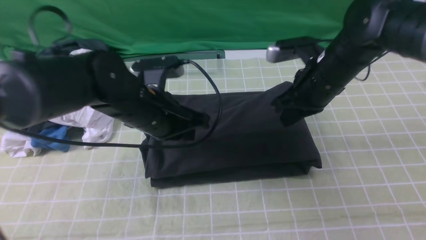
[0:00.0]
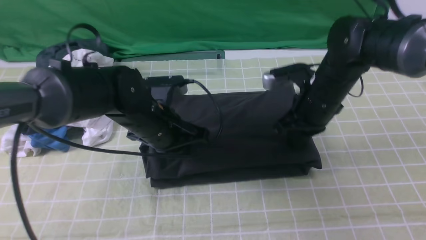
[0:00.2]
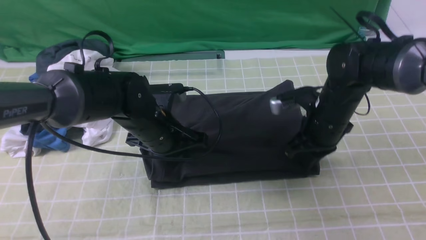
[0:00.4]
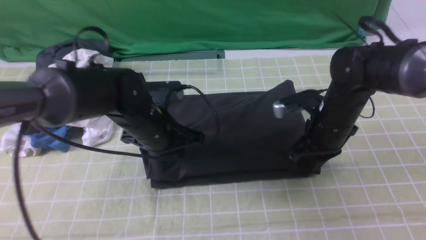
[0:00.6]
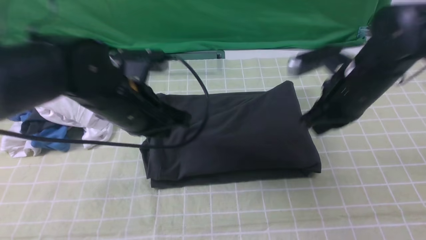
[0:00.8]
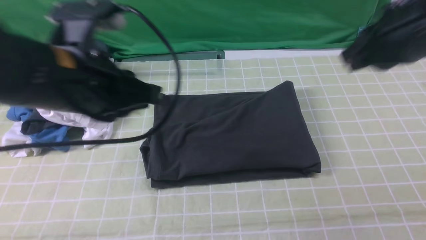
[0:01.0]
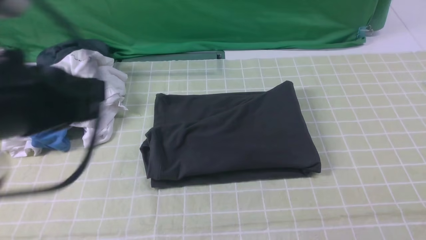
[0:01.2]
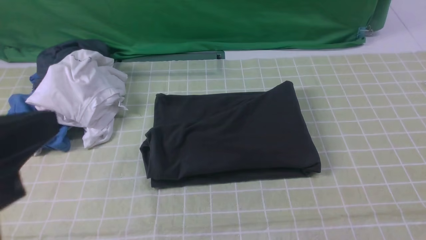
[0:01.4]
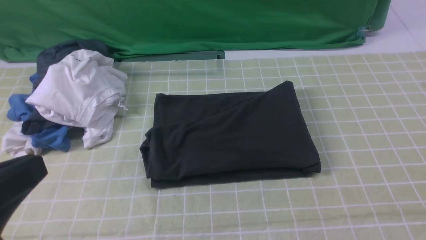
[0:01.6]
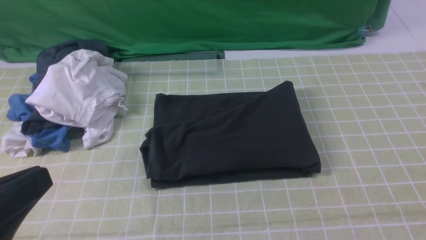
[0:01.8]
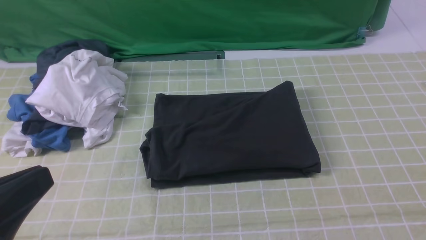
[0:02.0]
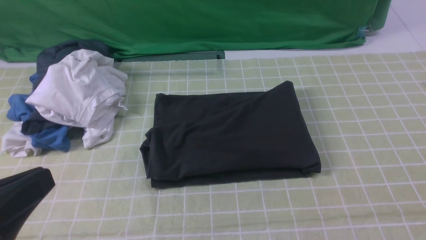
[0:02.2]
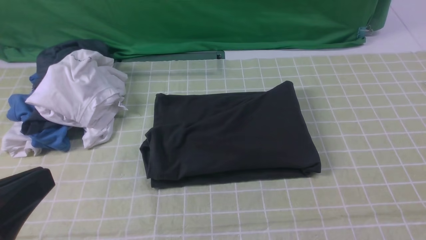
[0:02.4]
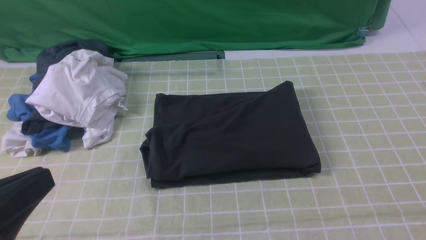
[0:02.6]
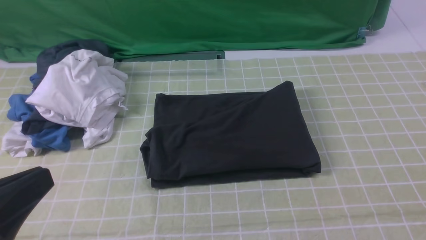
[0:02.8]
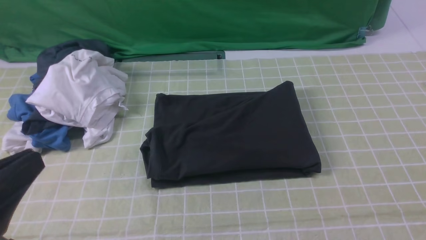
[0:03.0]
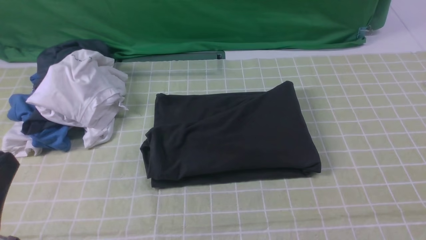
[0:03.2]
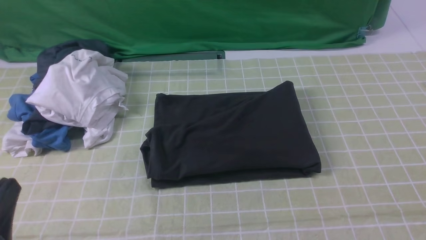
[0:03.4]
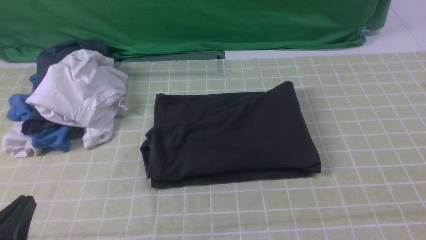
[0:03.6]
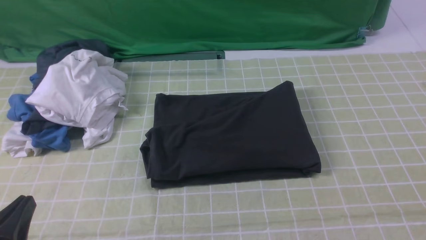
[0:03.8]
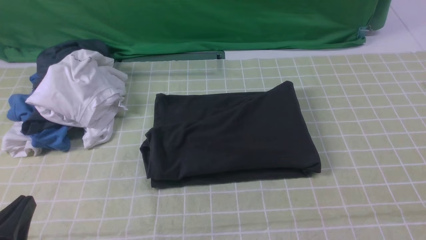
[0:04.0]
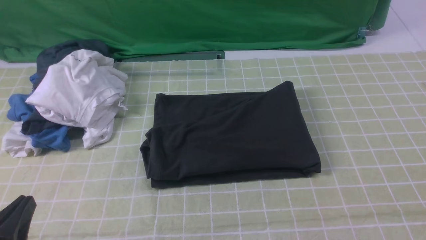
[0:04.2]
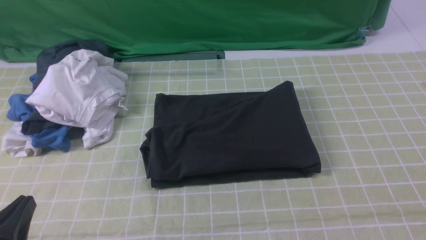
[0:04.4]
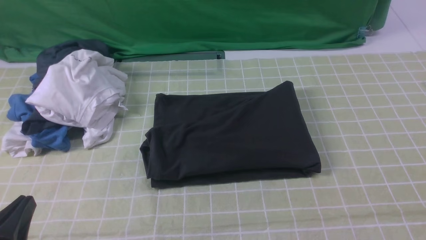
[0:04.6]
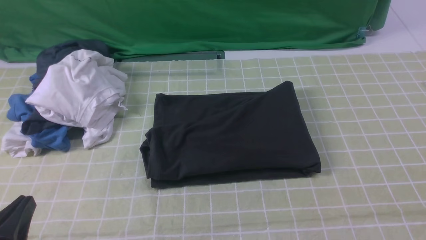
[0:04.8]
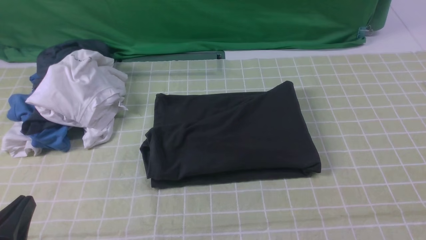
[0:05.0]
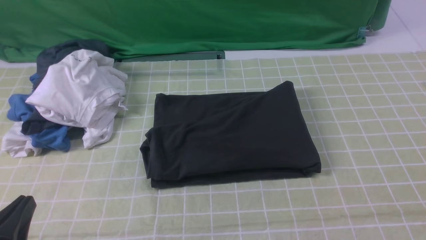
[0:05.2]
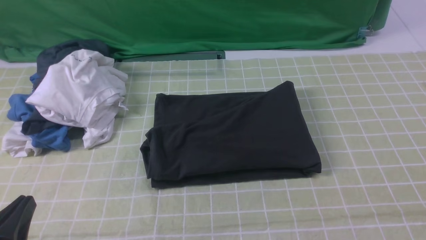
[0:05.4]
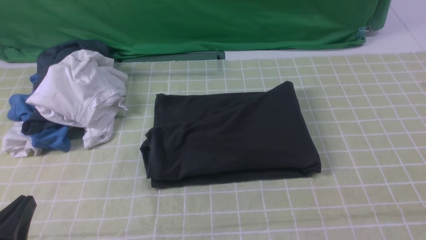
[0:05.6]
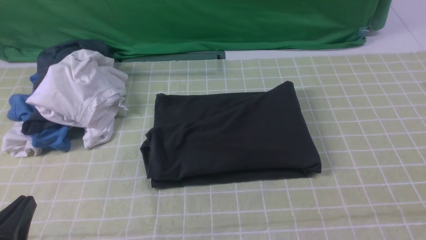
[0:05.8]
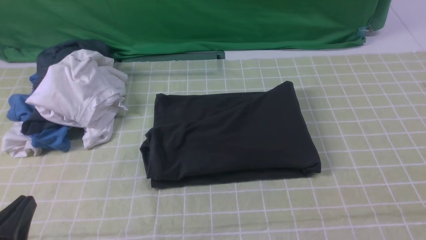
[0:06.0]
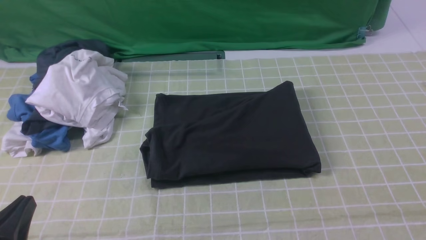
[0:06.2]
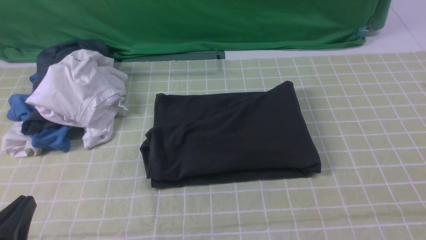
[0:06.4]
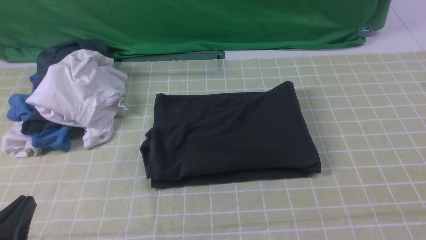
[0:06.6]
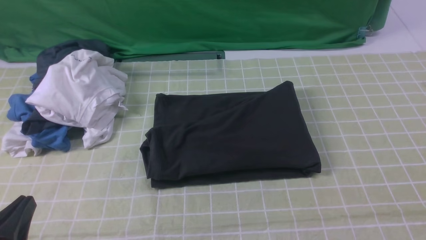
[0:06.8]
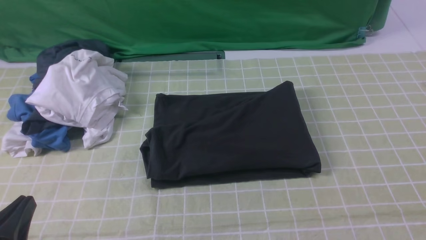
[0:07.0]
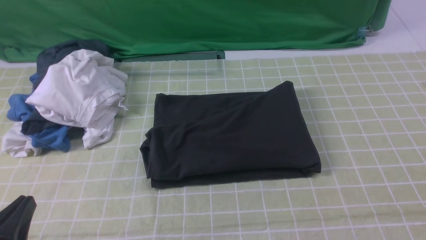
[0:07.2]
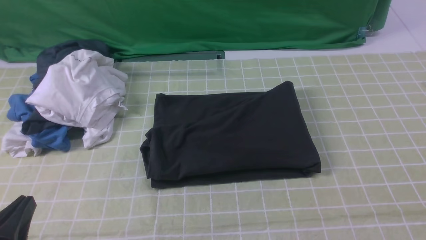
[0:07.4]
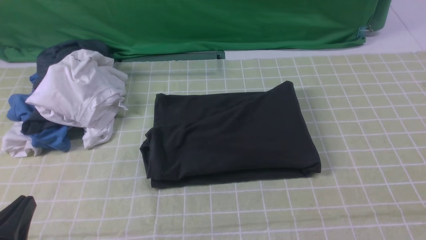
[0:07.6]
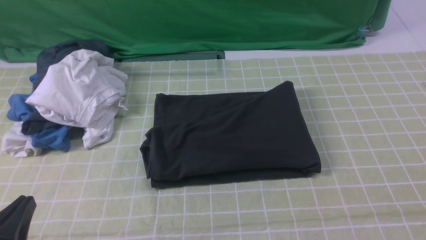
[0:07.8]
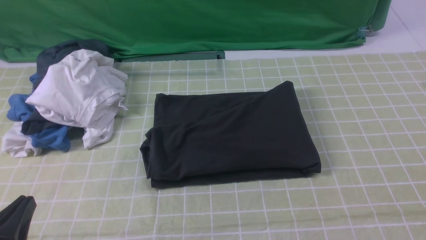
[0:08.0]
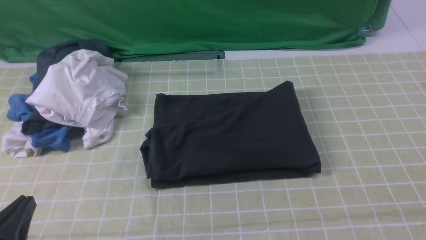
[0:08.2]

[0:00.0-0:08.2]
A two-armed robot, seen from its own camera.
0:00.0 to 0:01.6: The right gripper moves backward, upward and to the right, some 40 cm. The left gripper goes some 30 cm backward, upward and to the left.
0:01.6 to 0:03.2: The left gripper moves downward, some 5 cm.
0:03.2 to 0:05.0: The left gripper moves downward, about 5 cm.
0:06.6 to 0:08.2: Both grippers stay put.

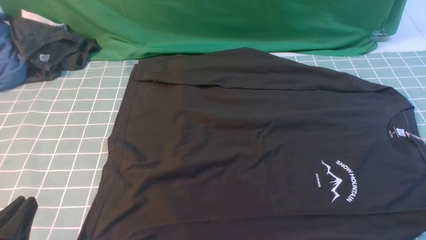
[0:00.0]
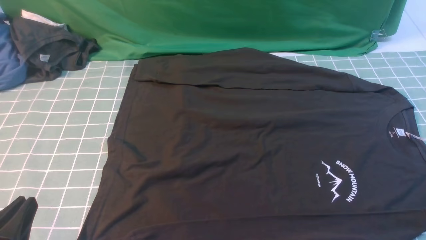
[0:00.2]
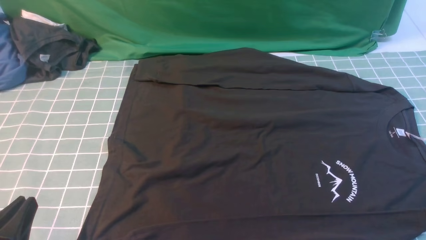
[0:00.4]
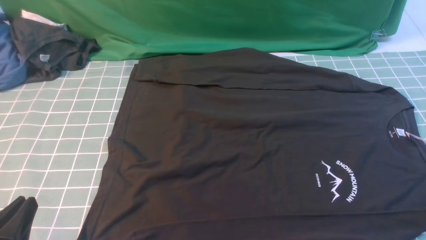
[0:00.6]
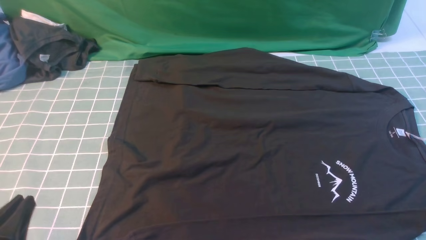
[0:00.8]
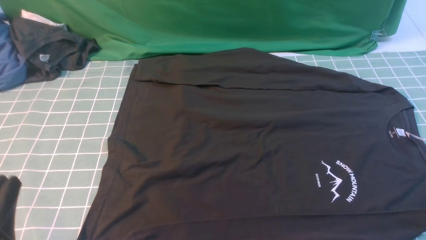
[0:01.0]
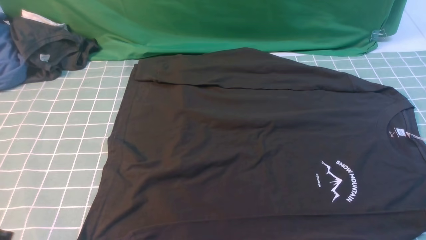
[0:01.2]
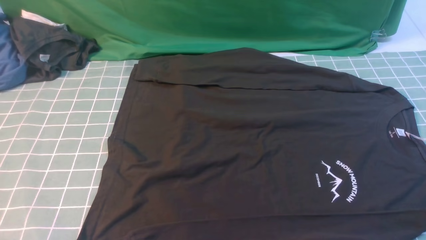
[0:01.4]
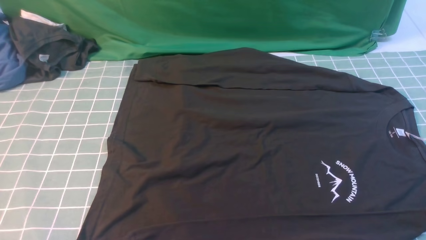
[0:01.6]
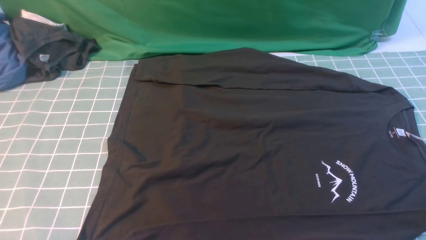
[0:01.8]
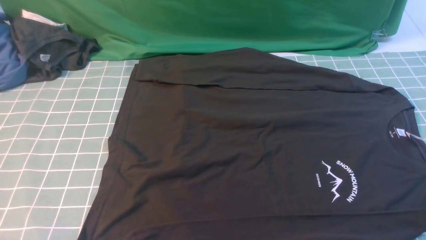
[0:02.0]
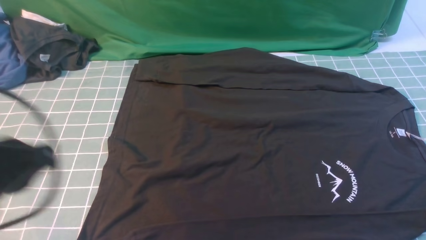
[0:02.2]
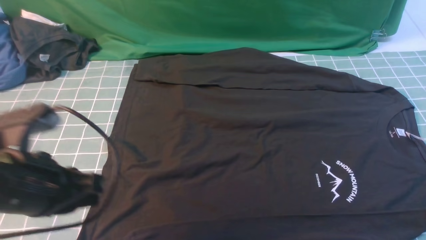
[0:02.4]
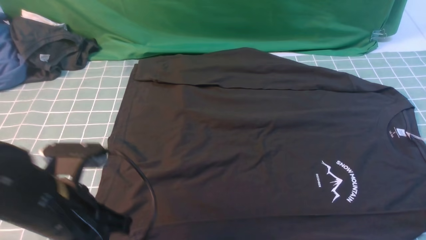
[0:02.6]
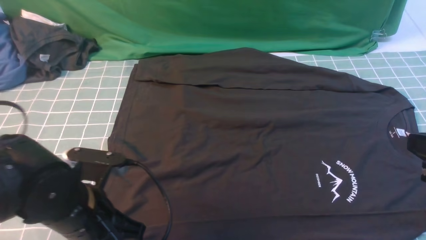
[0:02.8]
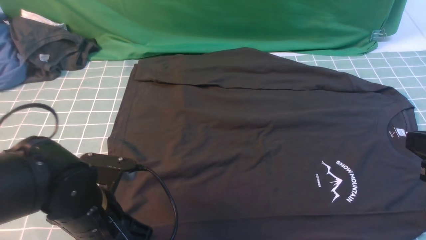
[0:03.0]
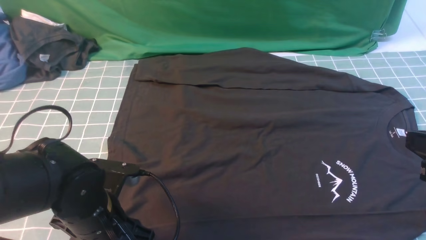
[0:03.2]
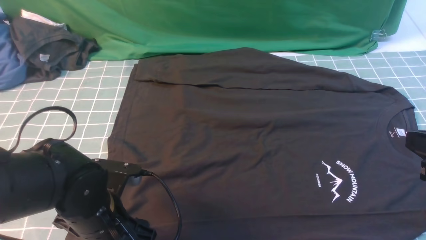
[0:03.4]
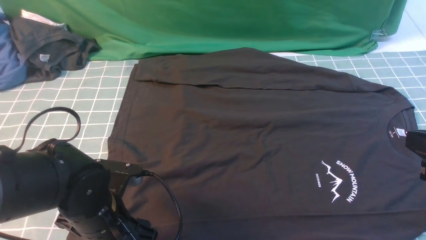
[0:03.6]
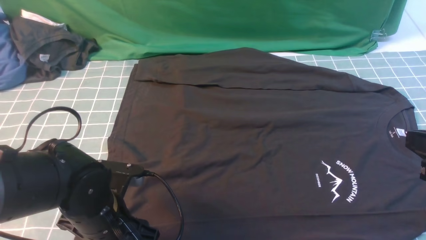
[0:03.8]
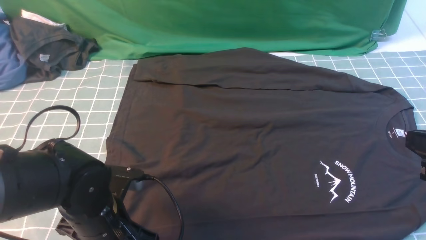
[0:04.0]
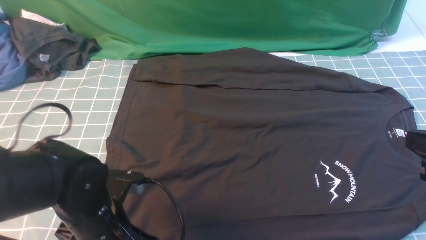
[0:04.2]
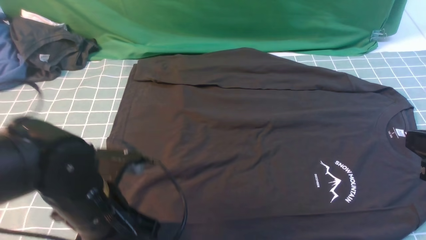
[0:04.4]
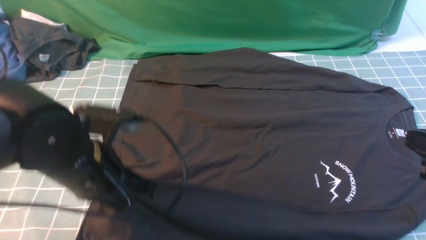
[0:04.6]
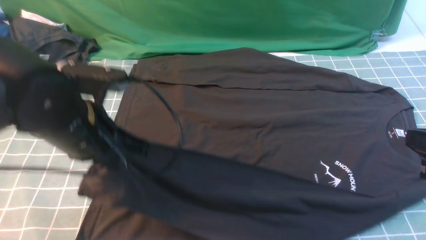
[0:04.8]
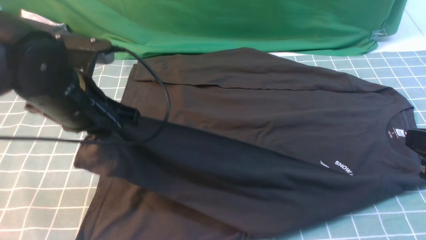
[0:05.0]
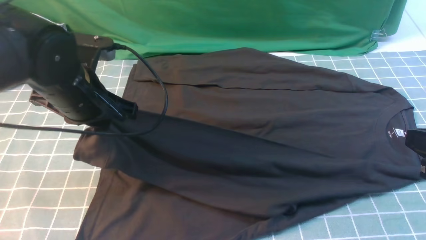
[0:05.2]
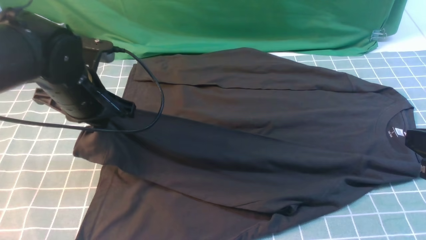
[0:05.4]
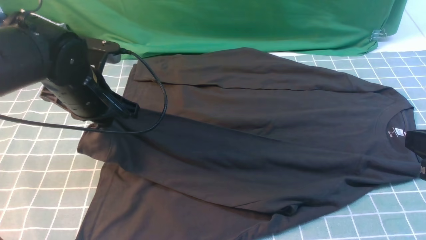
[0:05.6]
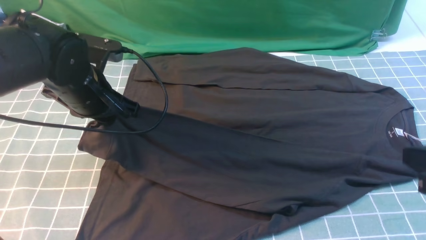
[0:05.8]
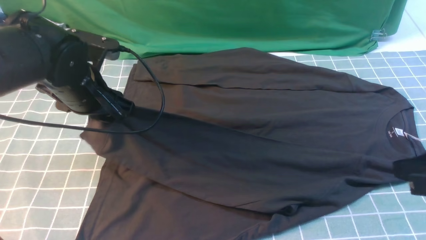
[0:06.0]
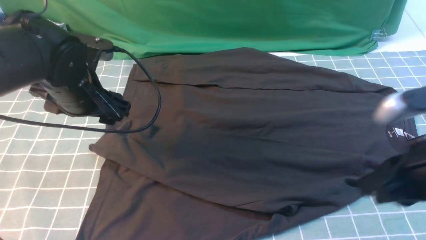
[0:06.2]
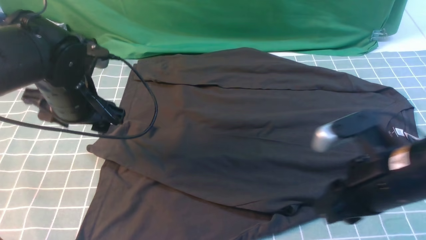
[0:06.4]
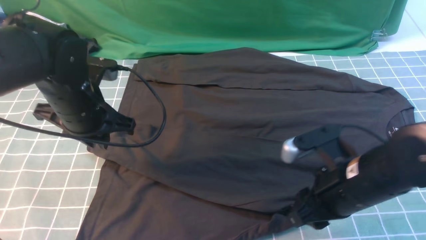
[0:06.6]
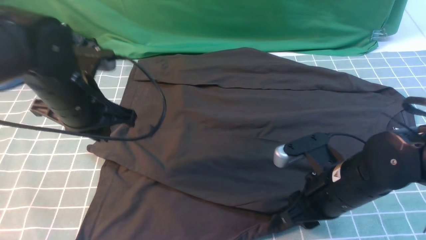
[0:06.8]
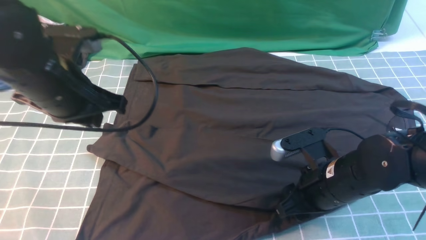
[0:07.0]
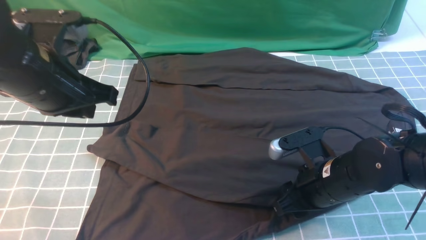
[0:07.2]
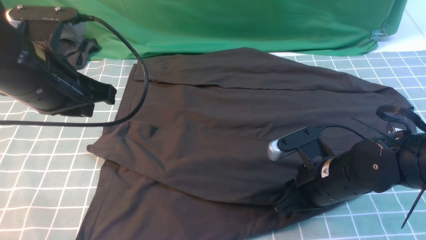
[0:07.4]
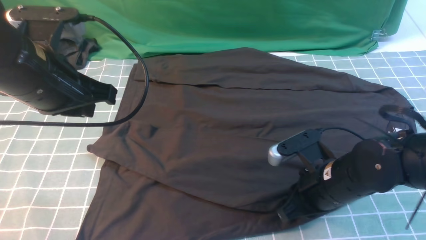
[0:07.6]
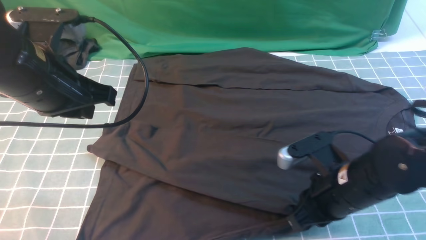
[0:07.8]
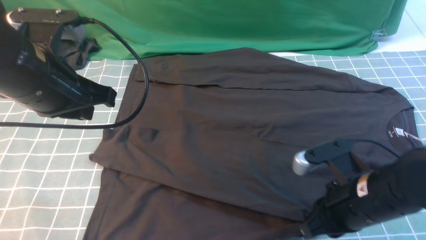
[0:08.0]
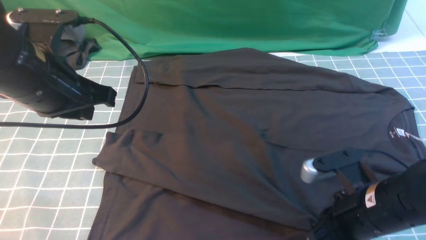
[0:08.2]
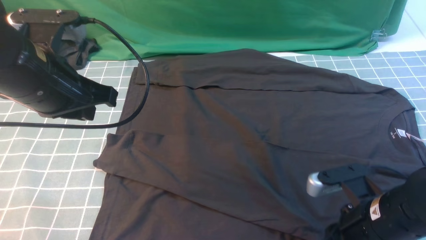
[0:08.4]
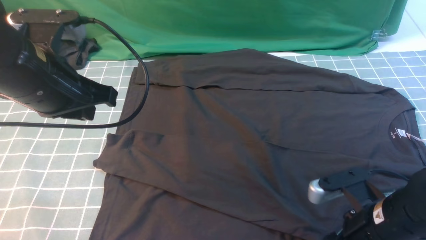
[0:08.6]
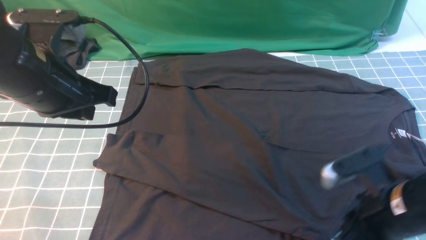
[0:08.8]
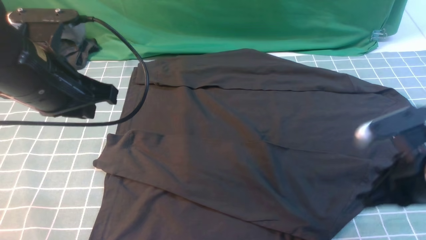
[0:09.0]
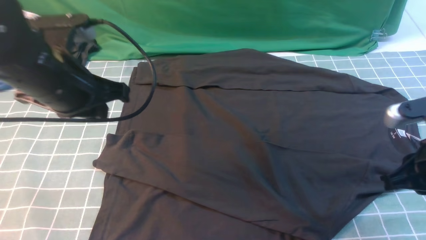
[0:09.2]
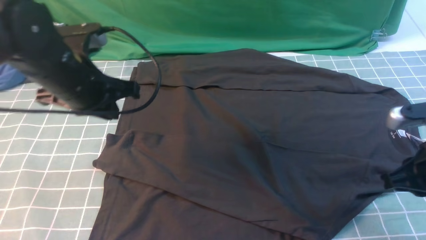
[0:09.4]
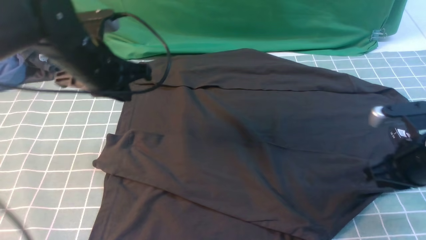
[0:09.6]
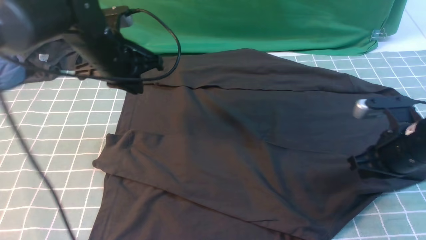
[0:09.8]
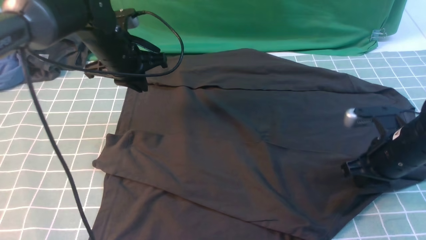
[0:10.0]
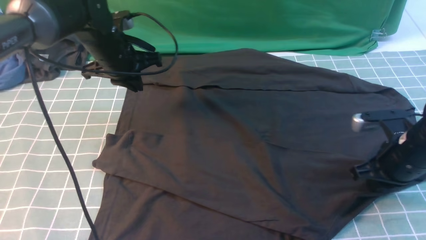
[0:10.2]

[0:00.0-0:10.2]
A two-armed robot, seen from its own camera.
Step, 0:00.0 to 0:04.2: use the left arm to clamp the cuff closest to it.
Step, 0:04.6 to 0:06.2: use the left arm to drag and place the cuff at the centered position on the left edge of the fabric.
0:01.4 to 0:03.0: The left gripper moves forward, to the right and downward, approximately 20 cm.
0:03.0 to 0:04.4: The left gripper opens, then closes again.
0:04.4 to 0:05.8: The left gripper shifts about 15 cm forward, and opens.
0:05.8 to 0:07.2: The left gripper shifts approximately 10 cm upward and backward, and closes, while the right gripper goes roughly 20 cm downward, to the left and forward, and opens its fingers.
0:07.2 to 0:08.8: The right gripper travels to the right and backward by approximately 10 cm.
0:08.8 to 0:10.2: The right gripper moves forward and to the right, approximately 10 cm, while the left gripper travels forward and downward by roughly 20 cm.
